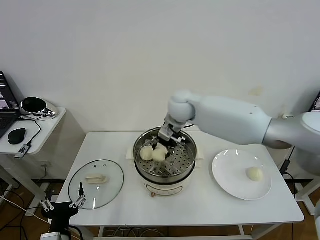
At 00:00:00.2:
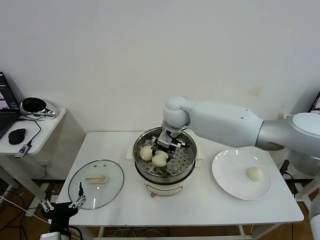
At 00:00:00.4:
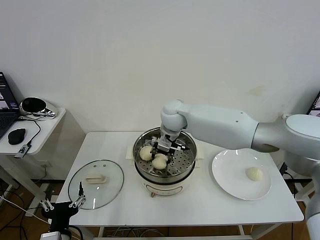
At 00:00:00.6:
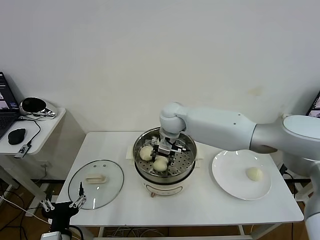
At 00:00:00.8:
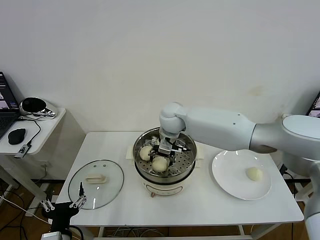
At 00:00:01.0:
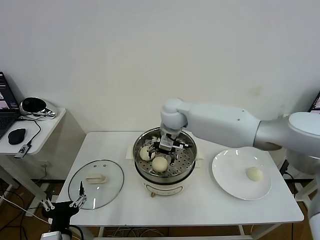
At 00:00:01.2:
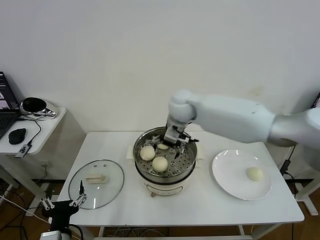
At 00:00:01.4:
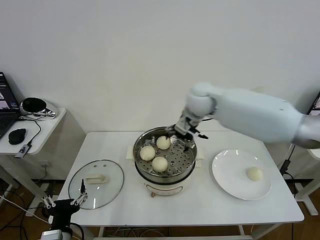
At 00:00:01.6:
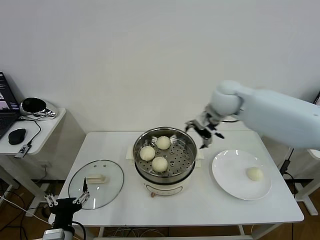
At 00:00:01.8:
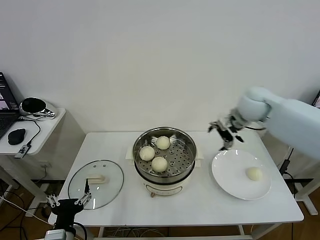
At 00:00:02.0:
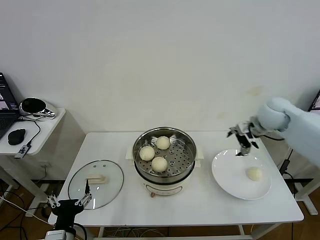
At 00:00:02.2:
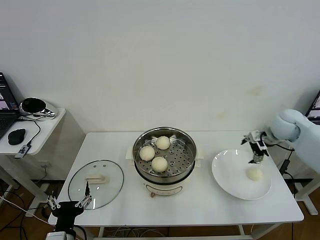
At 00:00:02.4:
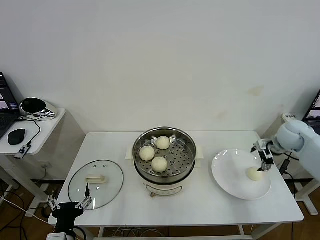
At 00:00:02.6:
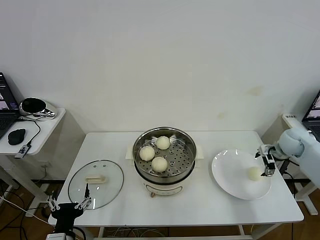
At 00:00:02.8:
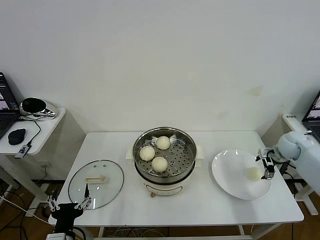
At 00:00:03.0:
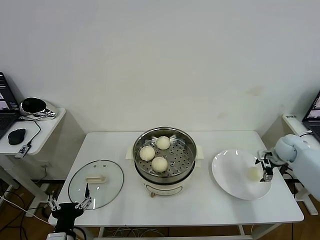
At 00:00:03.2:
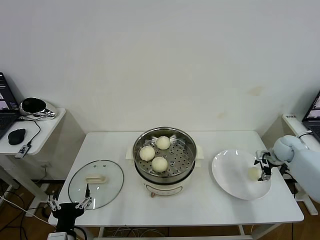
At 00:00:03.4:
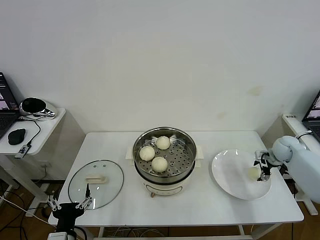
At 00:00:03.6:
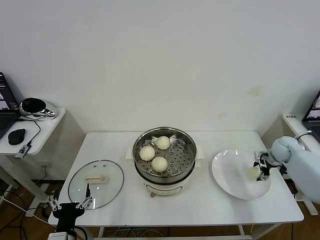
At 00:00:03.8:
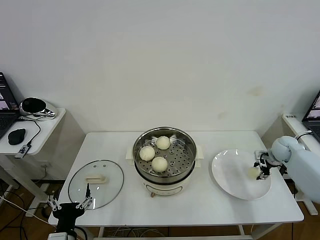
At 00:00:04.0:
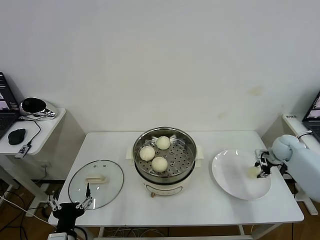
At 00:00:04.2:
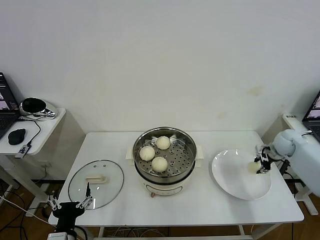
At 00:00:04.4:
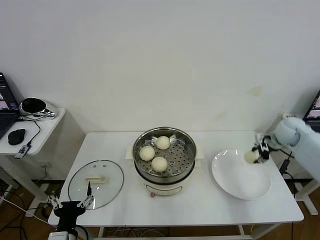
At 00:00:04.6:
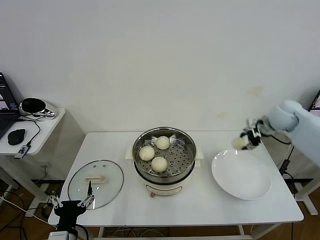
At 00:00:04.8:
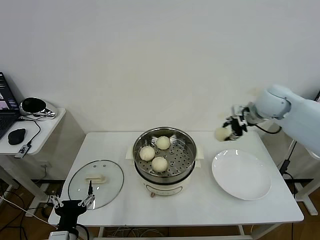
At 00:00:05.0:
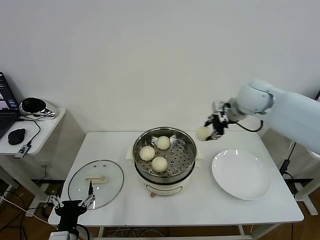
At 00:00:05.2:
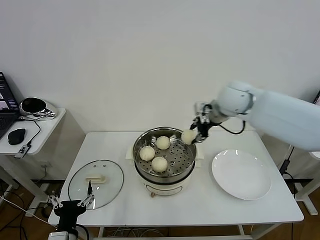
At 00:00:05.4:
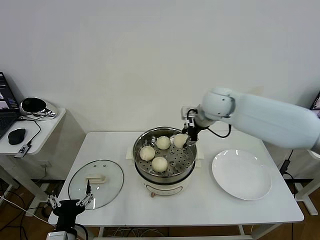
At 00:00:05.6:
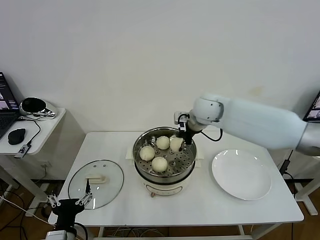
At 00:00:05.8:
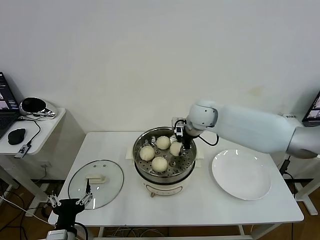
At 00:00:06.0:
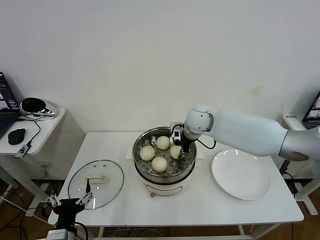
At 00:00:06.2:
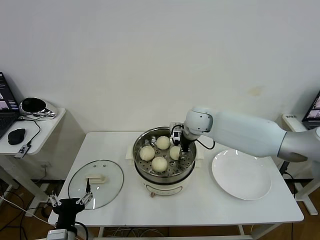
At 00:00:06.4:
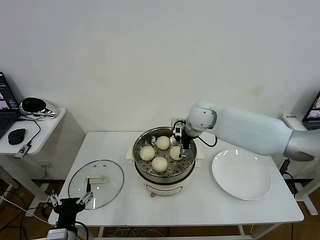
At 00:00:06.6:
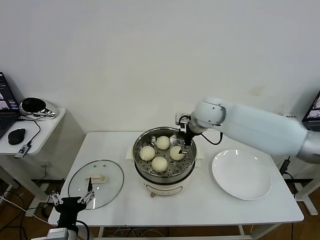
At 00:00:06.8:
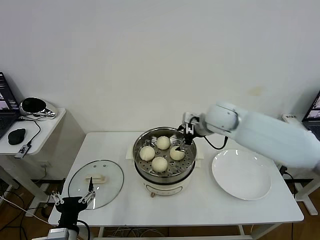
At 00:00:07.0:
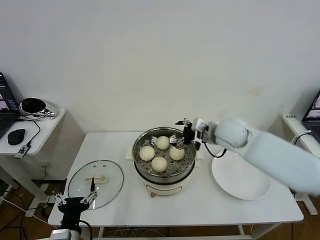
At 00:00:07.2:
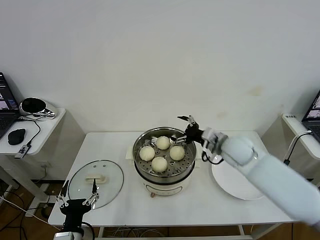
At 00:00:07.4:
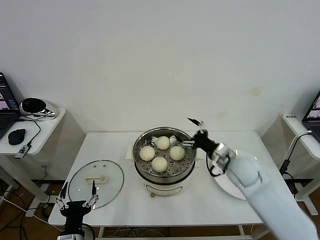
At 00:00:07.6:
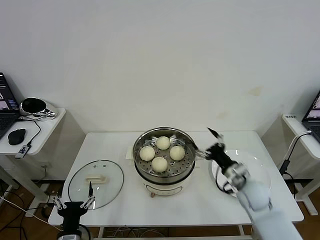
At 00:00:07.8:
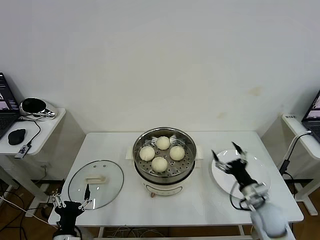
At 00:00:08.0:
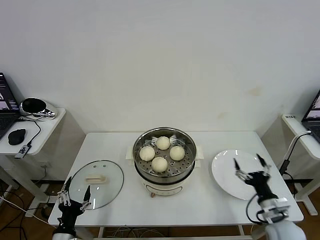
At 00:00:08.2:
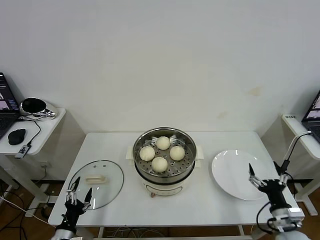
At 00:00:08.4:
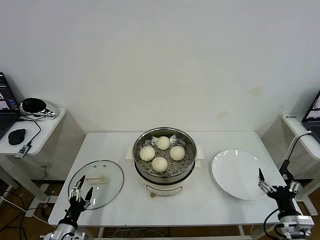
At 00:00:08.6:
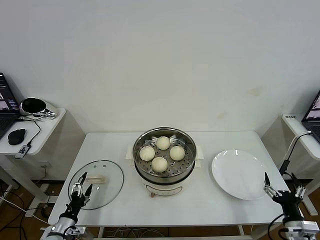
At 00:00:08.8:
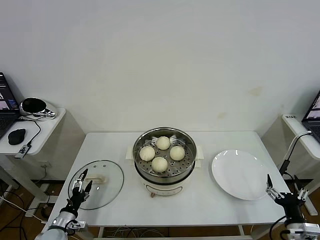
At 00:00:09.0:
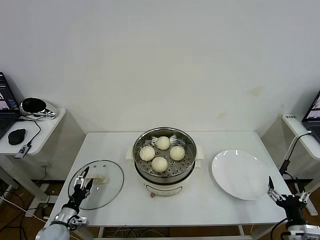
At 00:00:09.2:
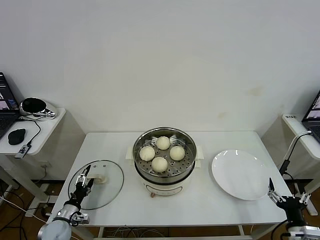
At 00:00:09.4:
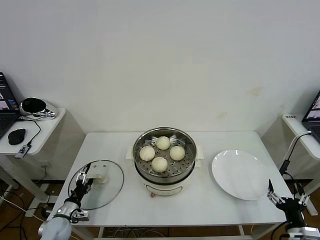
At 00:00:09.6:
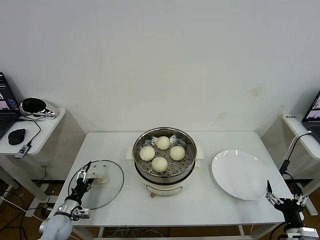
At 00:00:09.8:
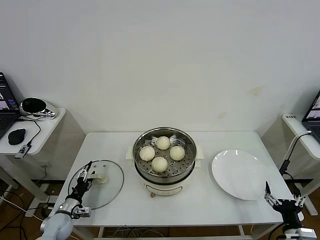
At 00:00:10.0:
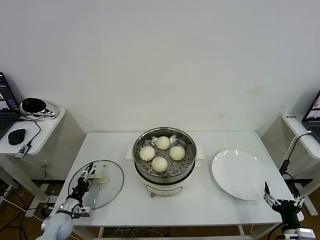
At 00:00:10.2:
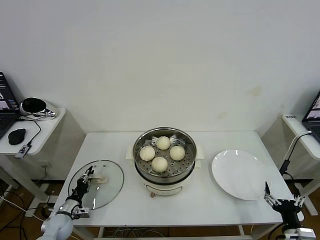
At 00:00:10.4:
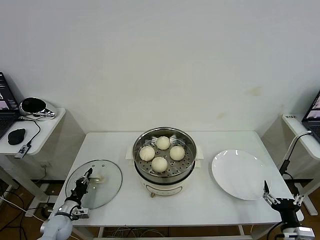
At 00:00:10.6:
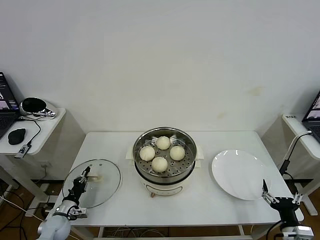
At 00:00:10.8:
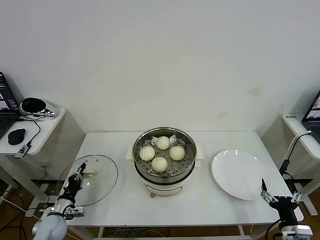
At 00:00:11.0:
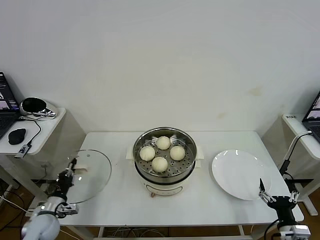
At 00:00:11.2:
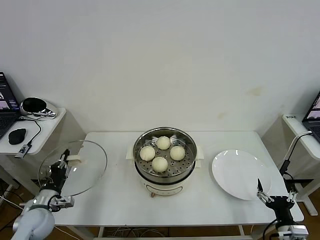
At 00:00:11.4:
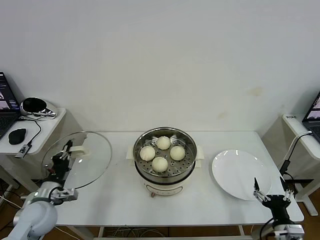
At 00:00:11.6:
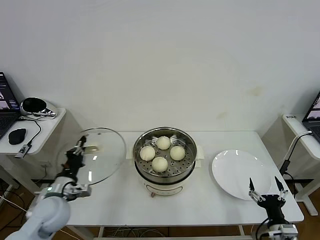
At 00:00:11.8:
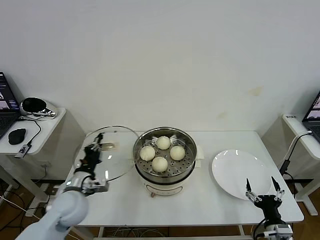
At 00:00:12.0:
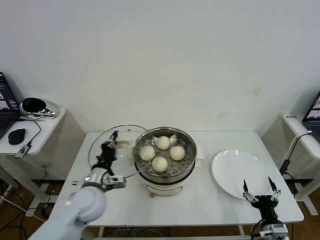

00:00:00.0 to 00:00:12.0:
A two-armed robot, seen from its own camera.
Task of the whole recording: take steamed baozi put them in steamer then cover it.
Step, 00:00:01.0 to 00:00:03.8: Grasp the baozi in the plate with right gripper.
Step, 00:00:04.2 to 00:00:06.4: Place the baozi on the steamer with right gripper.
Step, 00:00:06.6 to 00:00:10.4: Grasp the pot lid with left gripper.
00:00:00.0 to 00:00:01.6: The right gripper moves to the right, some 15 cm, and opens its fingers.
00:00:01.6 to 00:00:03.0: The right gripper goes roughly 35 cm to the right and downward.
00:00:03.0 to 00:00:04.4: The right gripper heads upward, covering some 10 cm, and closes its fingers.
00:00:04.4 to 00:00:06.0: The right gripper goes approximately 30 cm to the left.
00:00:06.0 to 00:00:07.6: The right gripper heads backward, to the right and downward, covering some 30 cm, and opens.
00:00:07.6 to 00:00:09.0: The left gripper is displaced to the left, forward and downward by some 20 cm, while the right gripper shifts about 25 cm backward and to the right.
00:00:09.0 to 00:00:10.4: The left gripper moves roughly 5 cm, and closes up.
00:00:10.4 to 00:00:12.0: The left gripper is displaced upward and to the right by roughly 30 cm.

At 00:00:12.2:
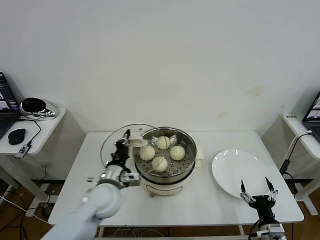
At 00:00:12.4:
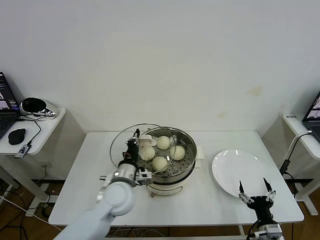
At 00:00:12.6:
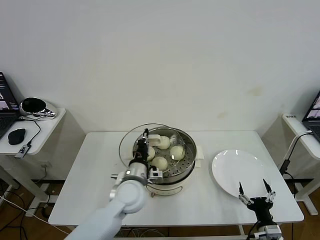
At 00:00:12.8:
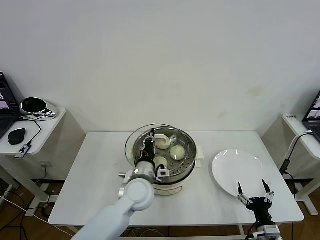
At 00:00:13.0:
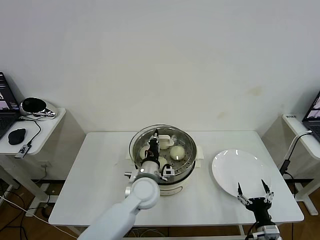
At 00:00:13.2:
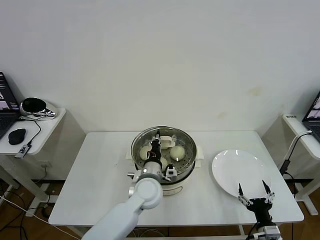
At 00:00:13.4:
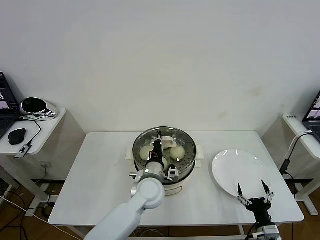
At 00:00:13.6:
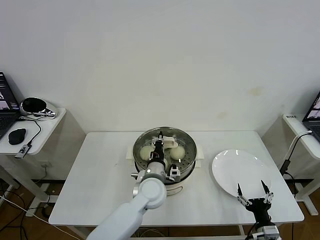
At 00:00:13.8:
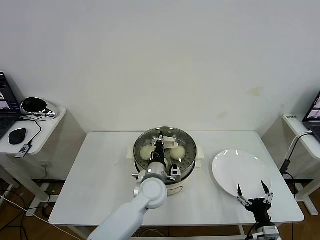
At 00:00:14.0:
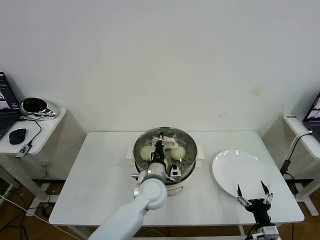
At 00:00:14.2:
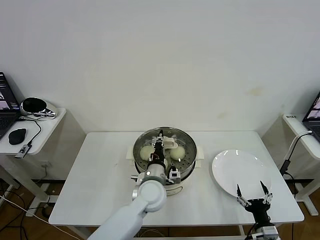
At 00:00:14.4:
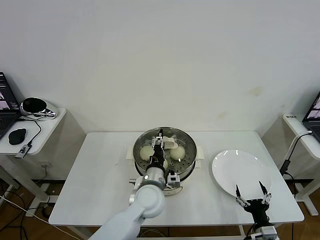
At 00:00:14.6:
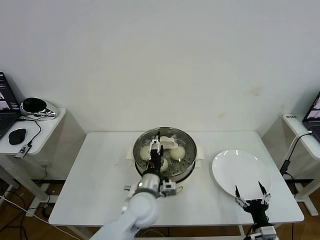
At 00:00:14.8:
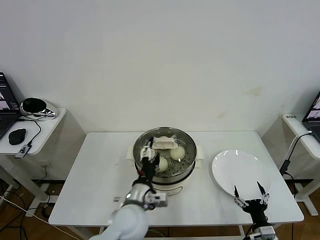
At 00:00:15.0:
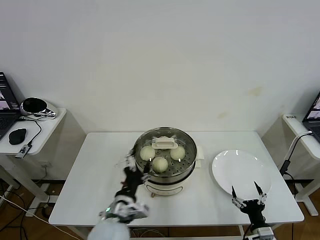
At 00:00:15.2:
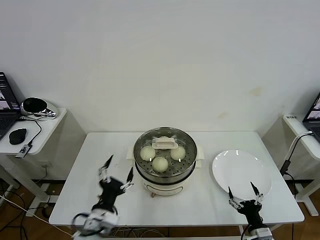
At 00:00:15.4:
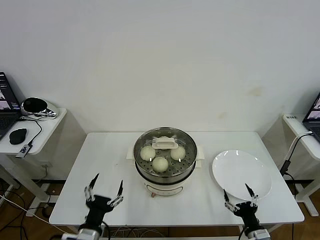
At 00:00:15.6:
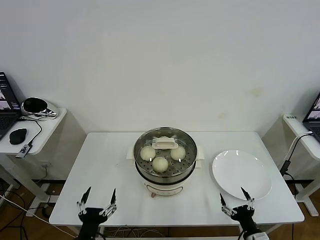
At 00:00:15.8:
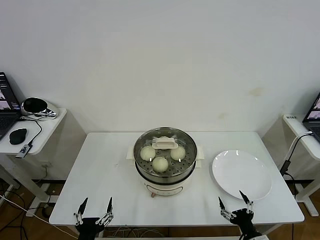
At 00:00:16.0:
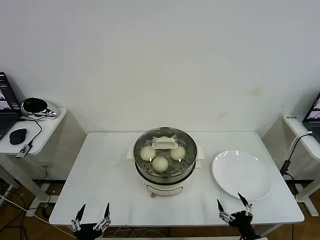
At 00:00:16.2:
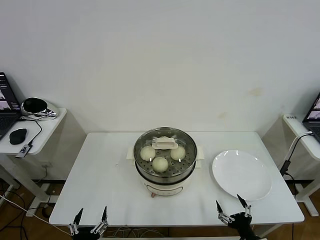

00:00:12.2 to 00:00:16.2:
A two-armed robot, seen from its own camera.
Task of the whole recording: take steamed baozi put them in steamer then cover it.
Step, 00:00:12.2 to 00:00:14.6: Place the pot lid on the steamer with left gripper.
00:00:12.2 to 00:00:13.6: The left gripper goes approximately 15 cm to the right.
00:00:13.6 to 00:00:14.8: The left gripper moves backward, some 10 cm, and opens its fingers.
00:00:14.8 to 00:00:16.2: The left gripper heads backward, to the left and downward, covering approximately 30 cm. Meanwhile the right gripper ends up some 5 cm from where it was.
